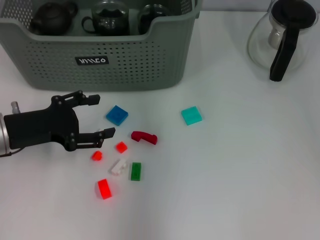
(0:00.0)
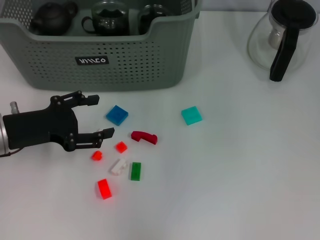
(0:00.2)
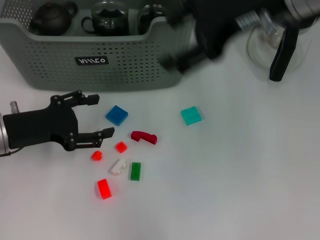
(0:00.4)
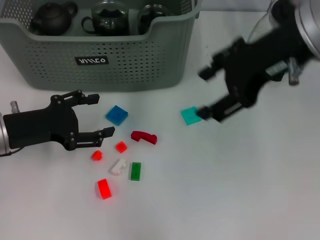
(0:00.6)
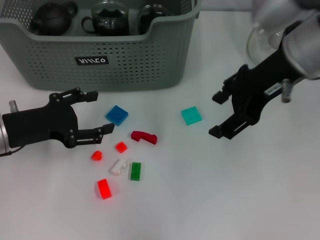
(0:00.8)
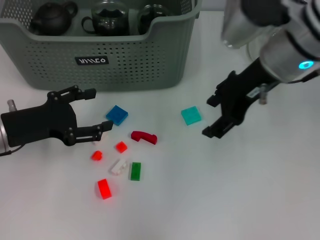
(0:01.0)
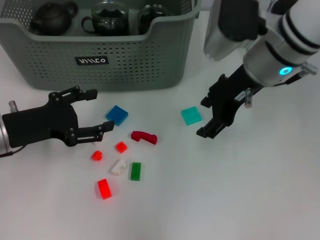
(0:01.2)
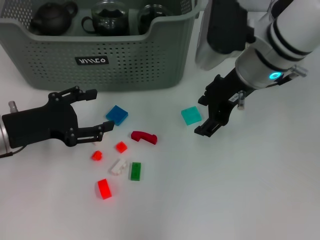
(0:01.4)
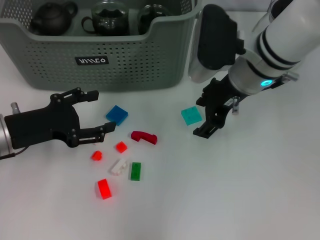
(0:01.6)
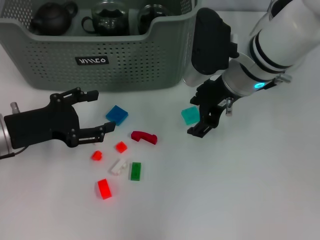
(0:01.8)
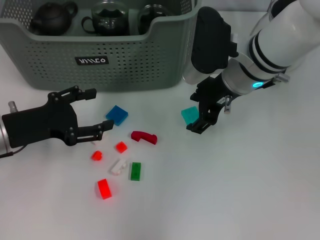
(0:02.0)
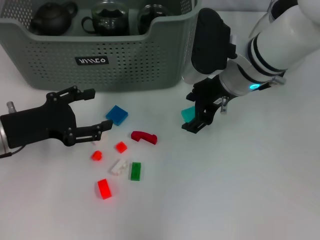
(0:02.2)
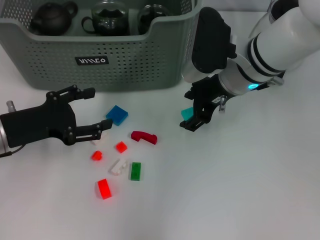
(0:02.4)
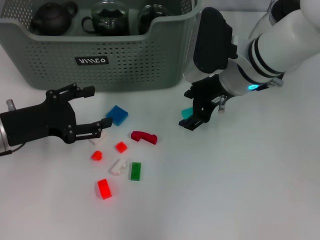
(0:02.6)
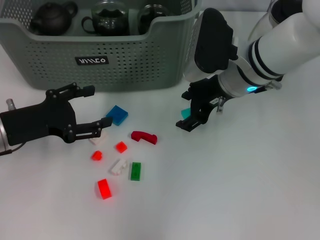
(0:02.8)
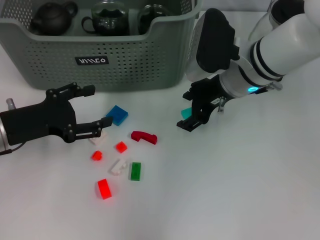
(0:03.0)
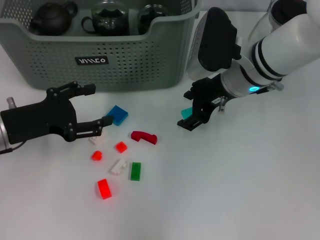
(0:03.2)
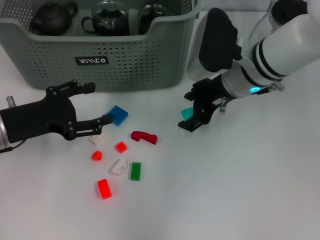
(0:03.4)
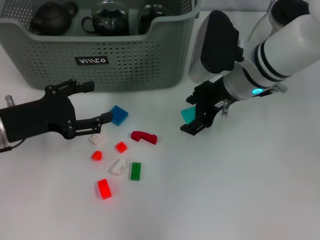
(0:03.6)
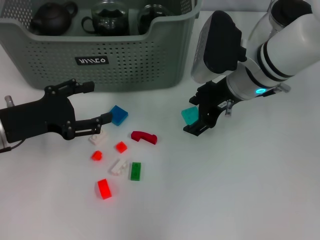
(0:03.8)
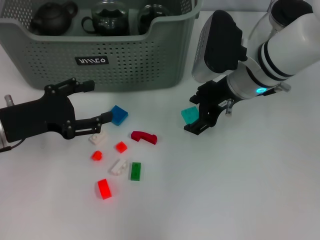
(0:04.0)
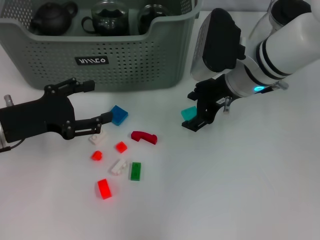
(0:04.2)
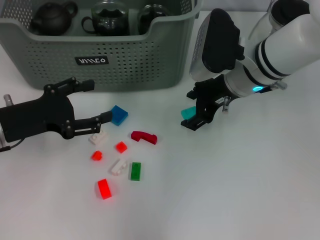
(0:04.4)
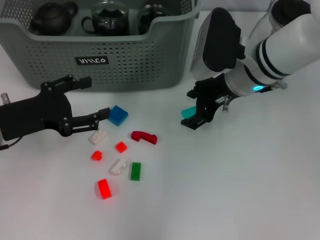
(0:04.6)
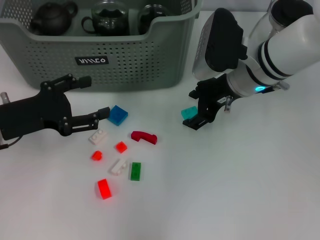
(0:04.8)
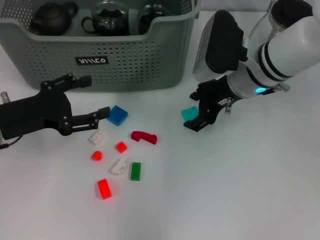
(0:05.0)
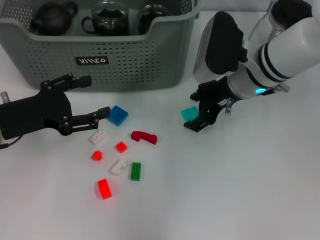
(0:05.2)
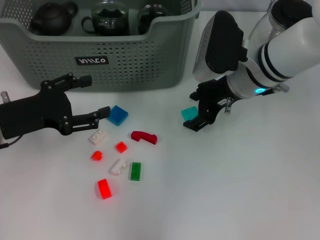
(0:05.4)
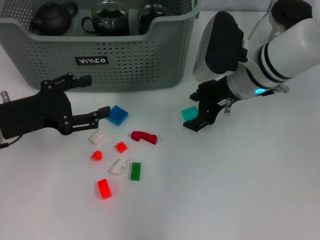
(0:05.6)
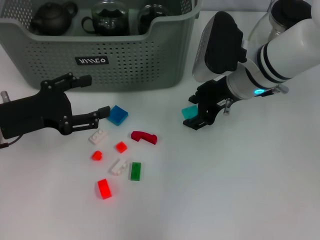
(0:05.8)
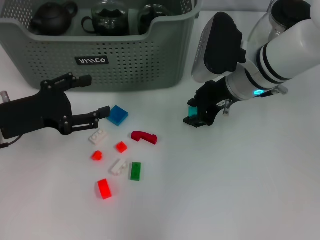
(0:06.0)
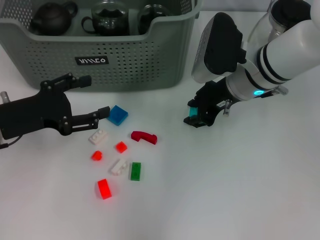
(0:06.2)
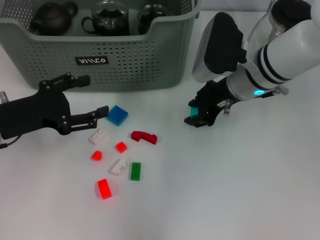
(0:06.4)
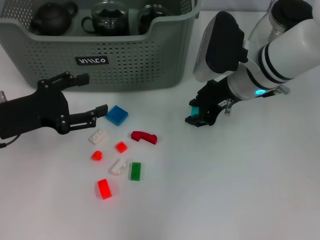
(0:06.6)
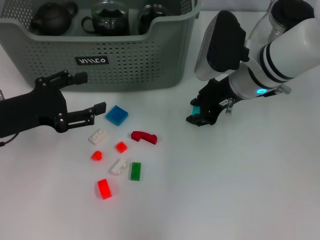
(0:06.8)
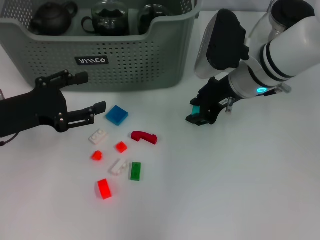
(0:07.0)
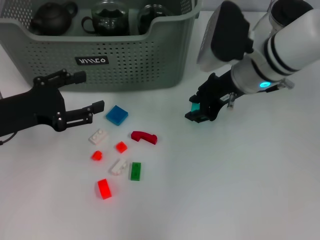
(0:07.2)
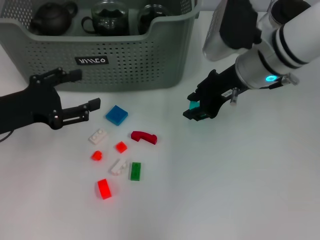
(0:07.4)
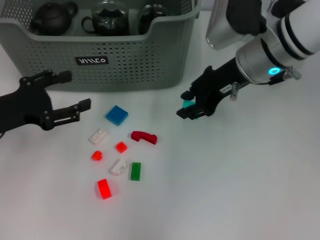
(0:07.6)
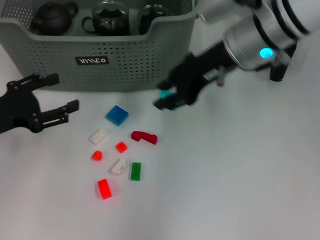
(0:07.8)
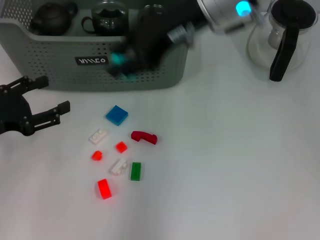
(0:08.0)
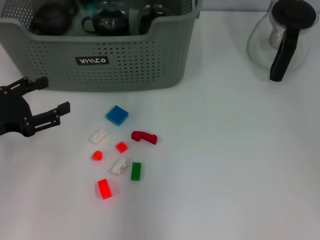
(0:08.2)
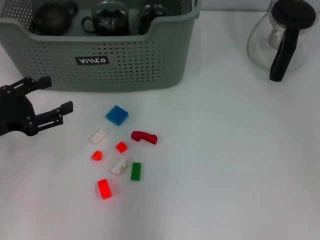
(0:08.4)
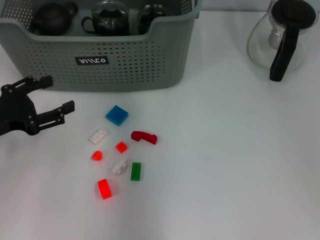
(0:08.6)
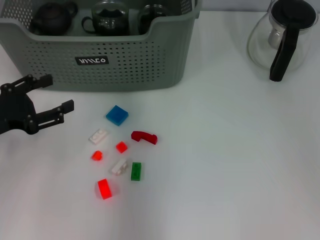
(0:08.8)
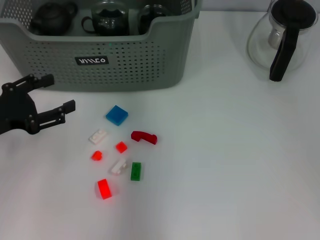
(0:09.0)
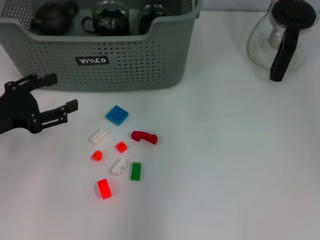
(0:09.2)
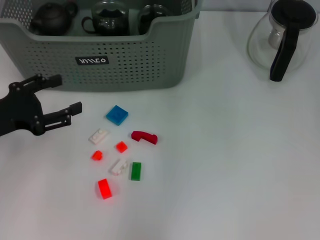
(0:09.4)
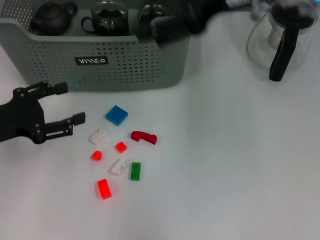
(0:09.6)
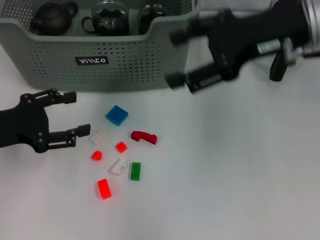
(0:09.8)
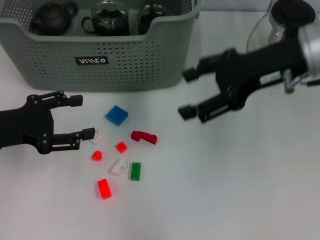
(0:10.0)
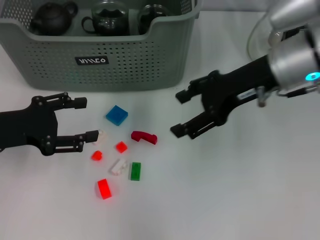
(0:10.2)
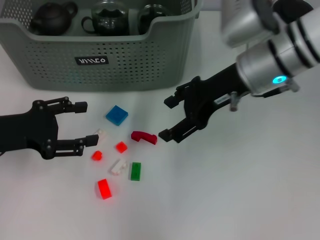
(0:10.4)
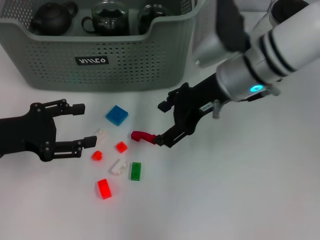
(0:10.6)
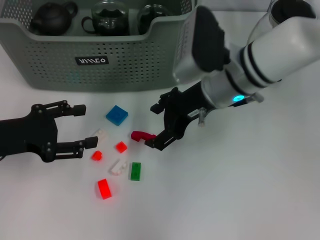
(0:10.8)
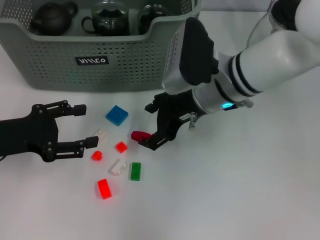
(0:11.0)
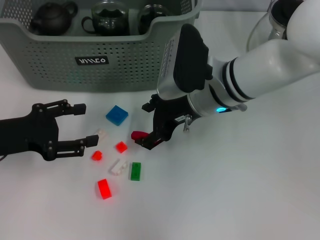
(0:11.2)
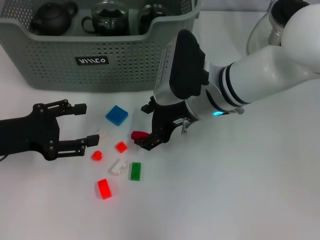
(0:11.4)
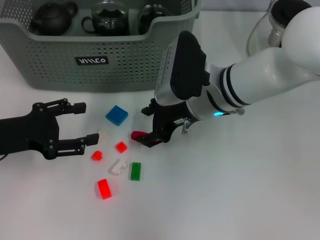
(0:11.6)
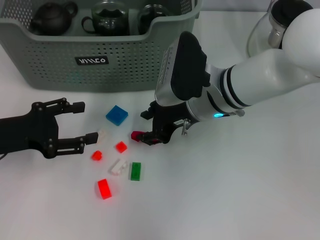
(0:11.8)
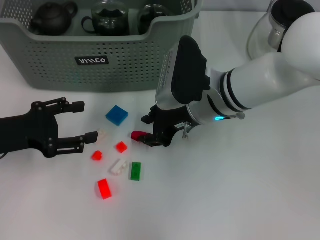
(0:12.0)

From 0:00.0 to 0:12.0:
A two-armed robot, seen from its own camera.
Task of the whole recording: pick up the teacup on the table and place it into the storage bin, pick up the block on the table and place it into the storage bin.
Step, from 0:00.2 to 0:06.4: Grasp the light blue block with right gripper.
Step, from 0:06.6 to 0:09.2: Place the light blue block in the storage box with right gripper.
From 0:00.0 to 0:01.6: The right gripper shifts about 15 cm downward.
From 0:01.6 to 0:03.0: The grippers stay close to where they were, moving slightly.
From 0:03.0 to 0:04.4: The two grippers keep their place.
From 0:04.4 to 0:06.0: Both grippers stay about where they are.
From 0:06.0 to 0:07.6: The right gripper changes place by some 5 cm.
From 0:07.6 to 0:09.0: The right gripper travels upward, to the left and forward by about 15 cm.
From 0:09.0 to 0:10.4: The right gripper shifts roughly 15 cm downward, backward and to the right, and opens its fingers.
From 0:10.4 to 0:12.0: The right gripper is displaced downward and to the left by about 10 cm, and closes up.

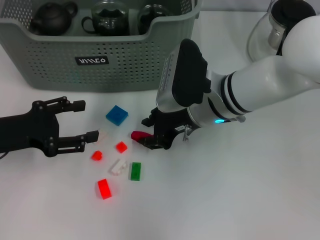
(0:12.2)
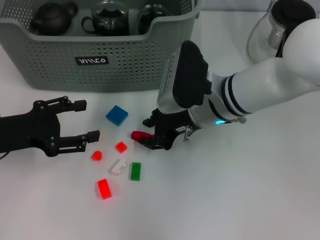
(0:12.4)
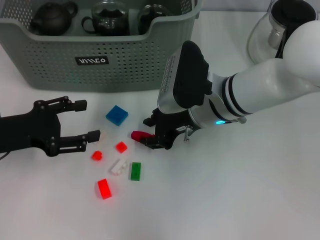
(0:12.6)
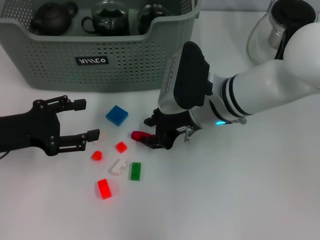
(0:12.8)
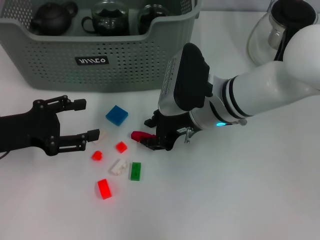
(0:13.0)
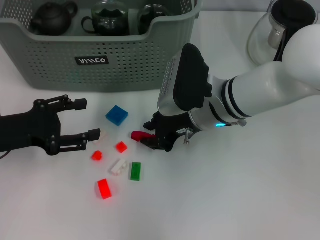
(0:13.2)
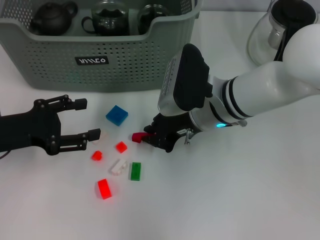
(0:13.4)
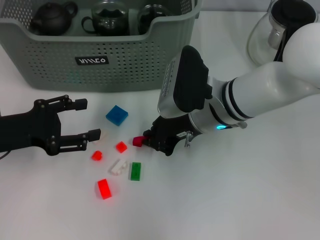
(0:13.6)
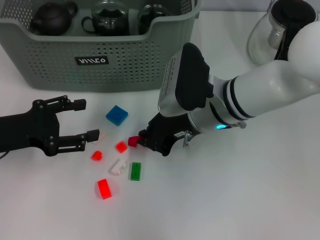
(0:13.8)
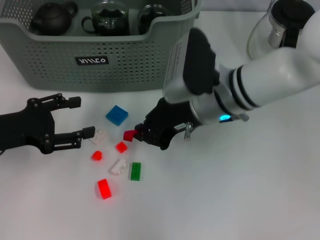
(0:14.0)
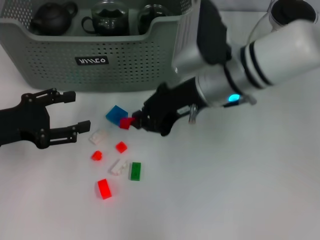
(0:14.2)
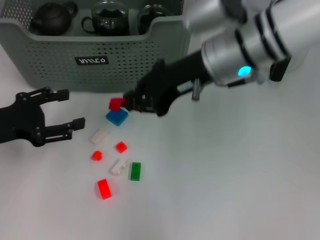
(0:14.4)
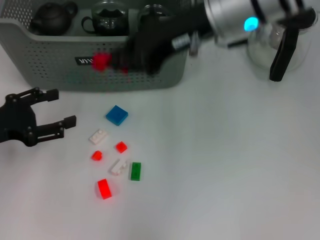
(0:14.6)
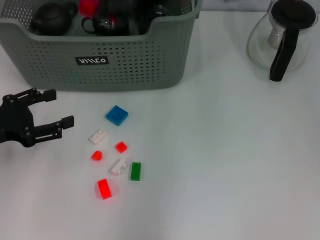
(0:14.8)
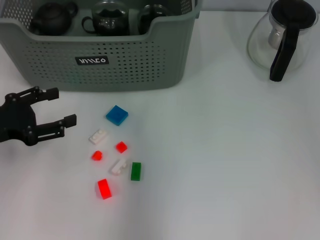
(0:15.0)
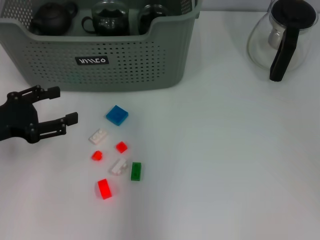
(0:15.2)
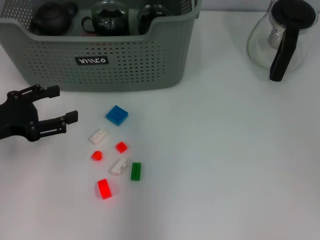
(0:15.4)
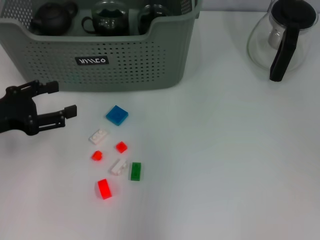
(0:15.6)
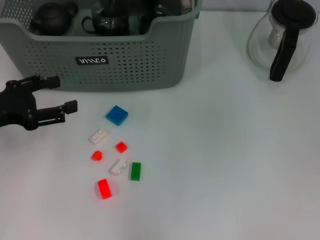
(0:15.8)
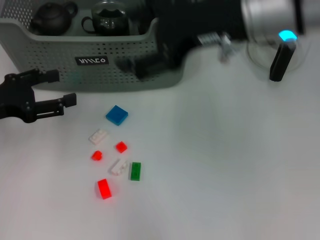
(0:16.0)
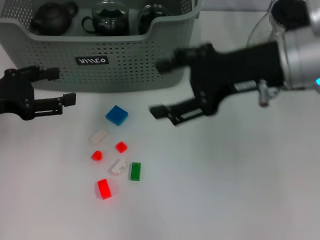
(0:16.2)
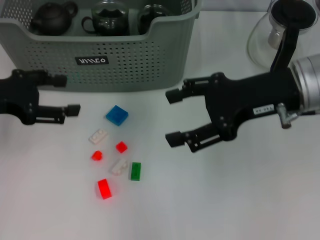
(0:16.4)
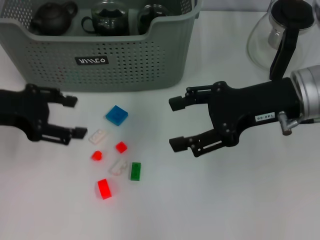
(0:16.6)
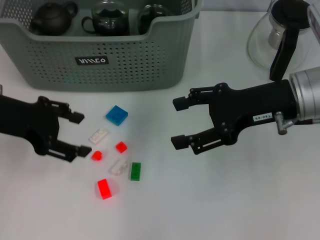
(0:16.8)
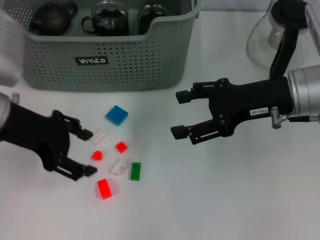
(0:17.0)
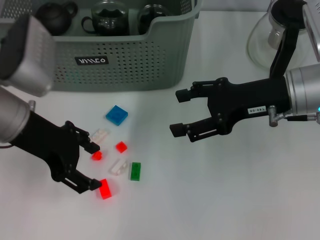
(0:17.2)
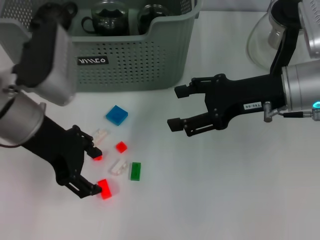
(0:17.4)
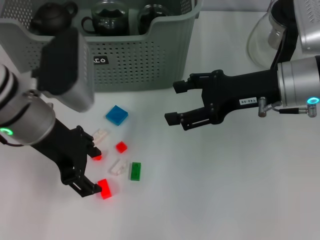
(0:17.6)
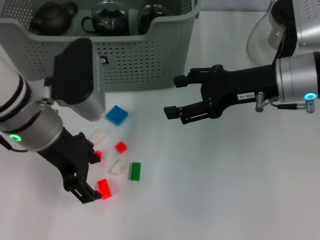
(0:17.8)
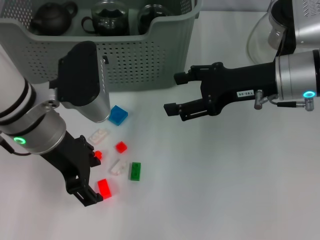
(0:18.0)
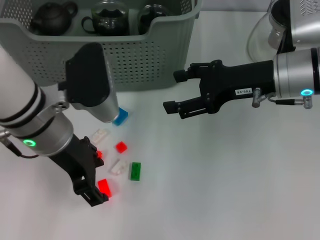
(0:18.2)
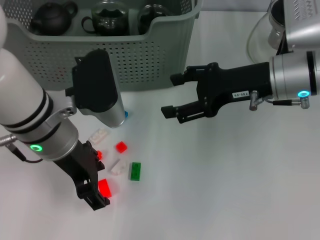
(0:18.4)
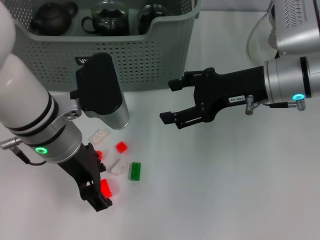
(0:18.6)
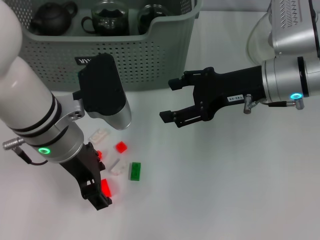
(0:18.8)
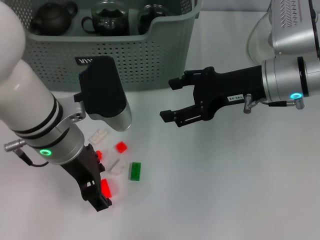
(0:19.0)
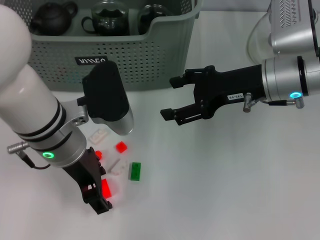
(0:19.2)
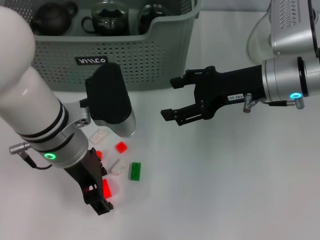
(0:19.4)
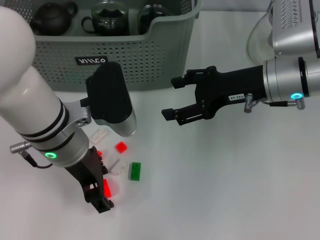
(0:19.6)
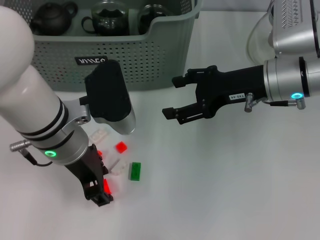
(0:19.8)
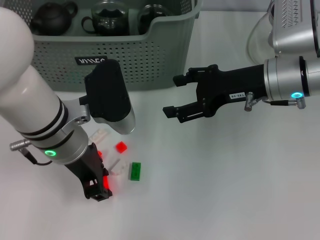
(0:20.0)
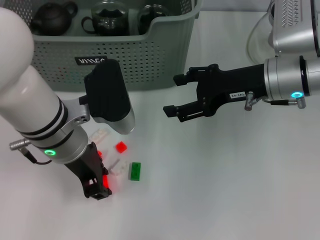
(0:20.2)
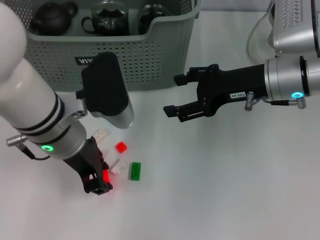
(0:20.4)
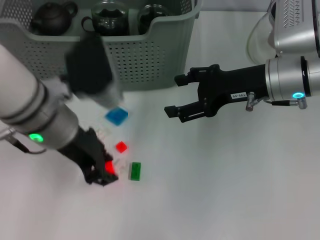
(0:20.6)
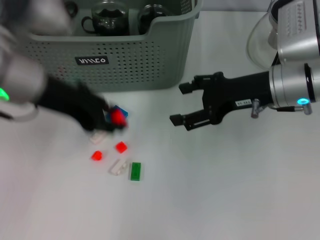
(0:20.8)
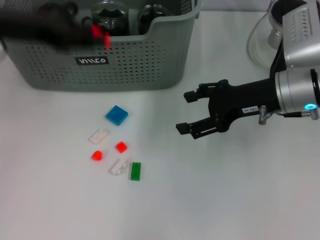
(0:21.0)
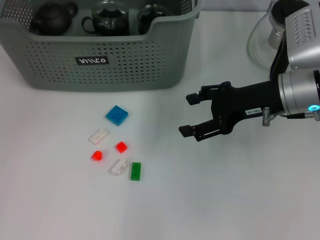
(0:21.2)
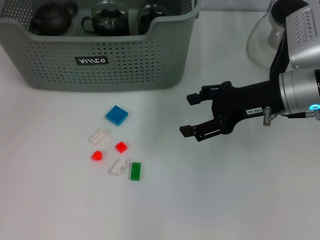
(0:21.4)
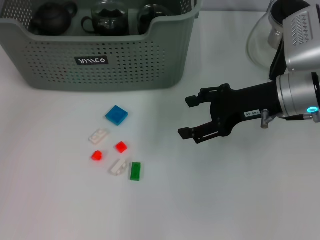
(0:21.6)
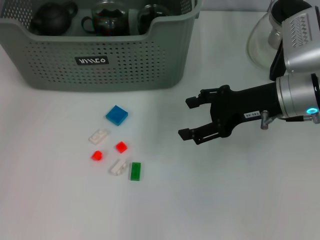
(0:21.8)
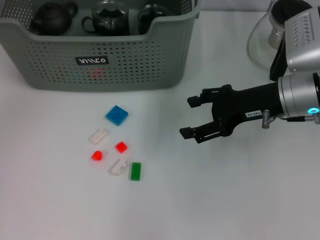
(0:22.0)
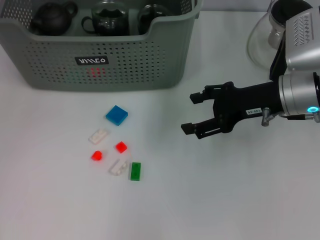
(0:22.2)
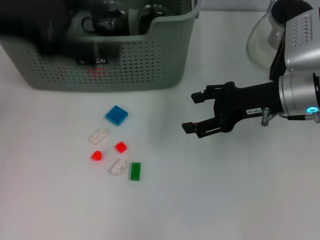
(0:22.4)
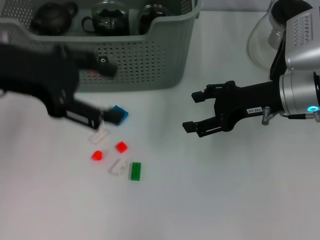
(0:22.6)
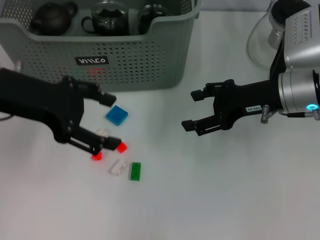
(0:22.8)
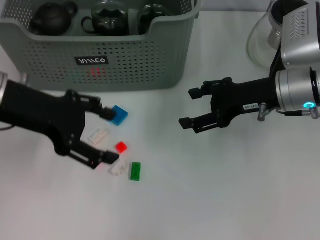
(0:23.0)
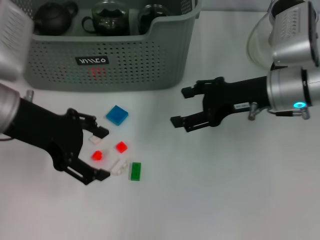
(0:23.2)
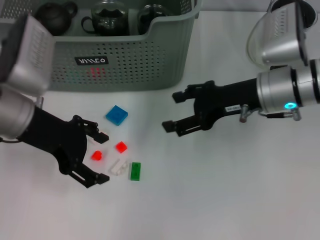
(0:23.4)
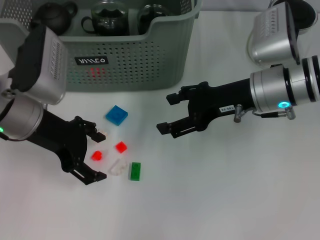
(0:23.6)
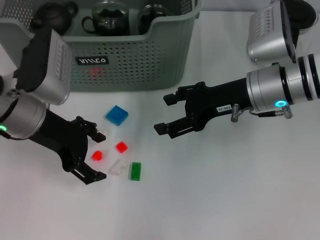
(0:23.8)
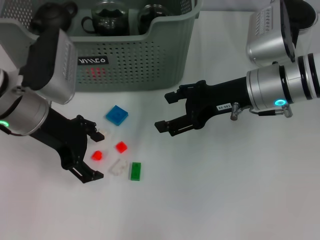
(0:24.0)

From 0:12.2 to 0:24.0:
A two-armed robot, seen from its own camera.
Task of the whole recording: pick up the teacup on the table and place it into the storage bin, pick up the block on the table and place it into the storage bin.
Step, from 0:13.8 to 0:15.4: Place the red block in the storage box with right gripper.
Step, from 0:15.8 to 0:20.2: Grasp the orange block with left gripper.
Step, from 0:20.4 to 0:22.0: Place the orange block in the storage box with left gripper.
From 0:12.2 to 0:13.6: Both grippers stay about where they are.
From 0:13.6 to 0:15.2: The right gripper goes approximately 20 cm upward and forward.
From 0:15.2 to 0:16.6: The left gripper heads upward, covering roughly 5 cm. The right gripper moves to the right, downward and backward, some 20 cm, and opens.
From 0:16.6 to 0:18.2: The left gripper heads to the right, covering about 15 cm.
From 0:19.6 to 0:21.0: The left gripper is displaced to the left and upward by roughly 15 cm, and closes.
From 0:21.0 to 0:22.6: The left gripper travels forward and back again, roughly 10 cm each way, and opens.
From 0:22.6 to 0:24.0: The left gripper heads downward, covering roughly 10 cm.
